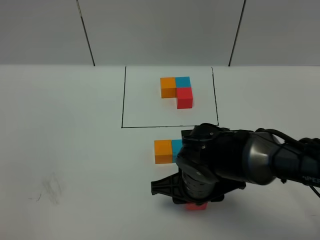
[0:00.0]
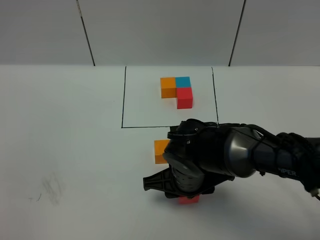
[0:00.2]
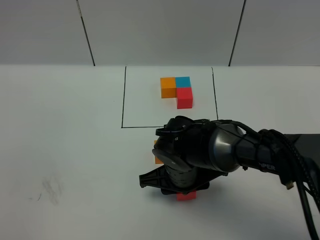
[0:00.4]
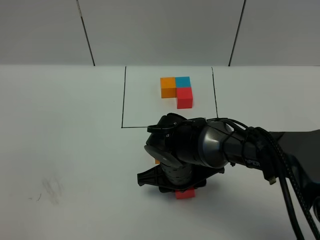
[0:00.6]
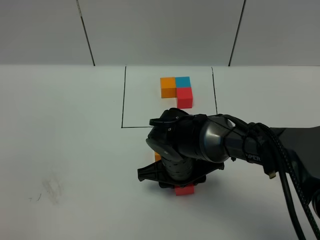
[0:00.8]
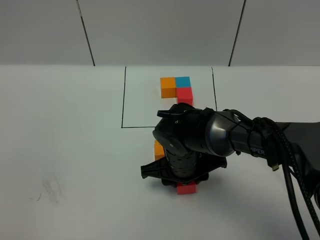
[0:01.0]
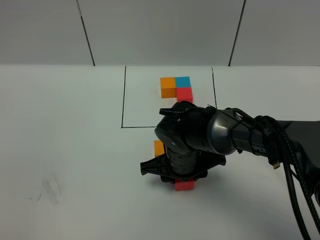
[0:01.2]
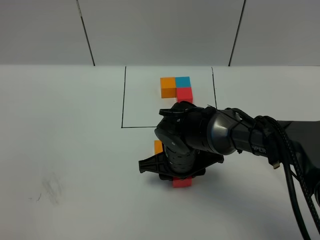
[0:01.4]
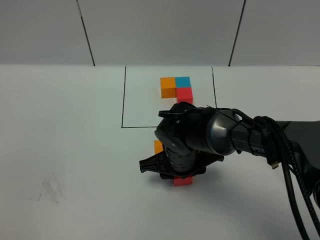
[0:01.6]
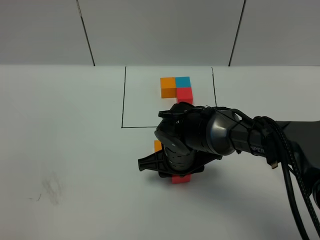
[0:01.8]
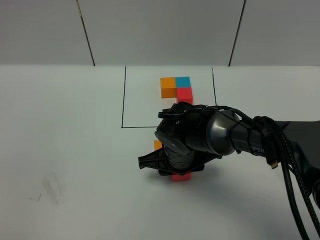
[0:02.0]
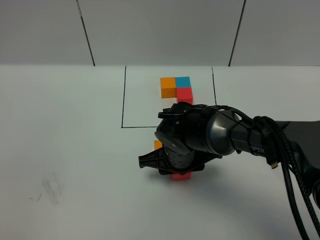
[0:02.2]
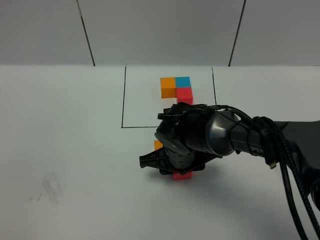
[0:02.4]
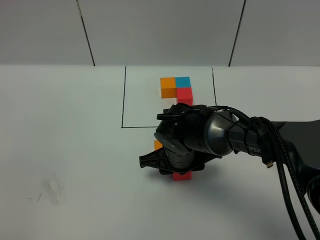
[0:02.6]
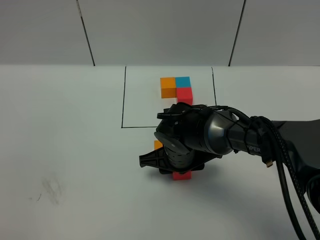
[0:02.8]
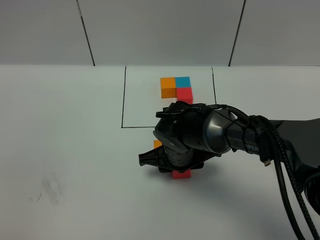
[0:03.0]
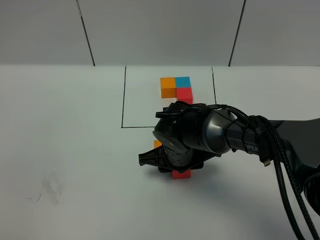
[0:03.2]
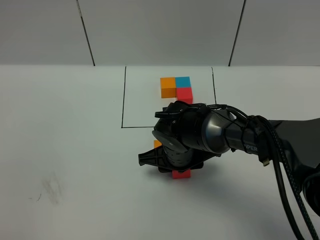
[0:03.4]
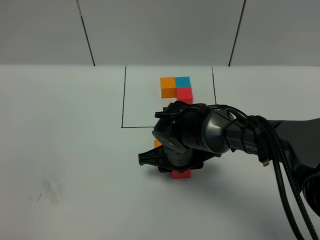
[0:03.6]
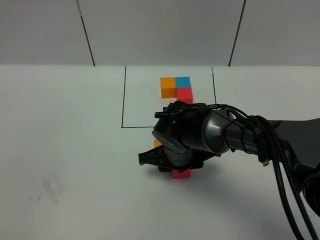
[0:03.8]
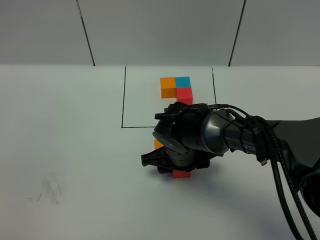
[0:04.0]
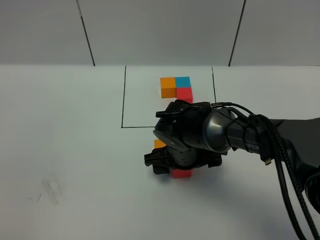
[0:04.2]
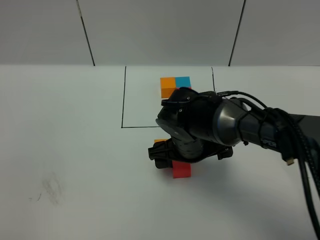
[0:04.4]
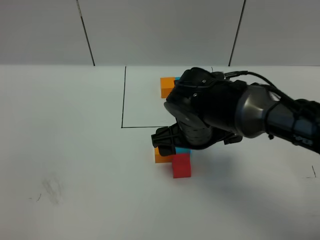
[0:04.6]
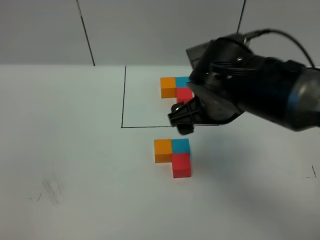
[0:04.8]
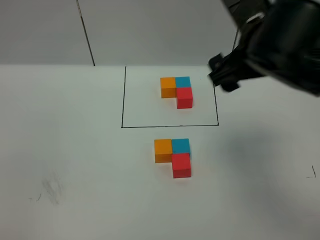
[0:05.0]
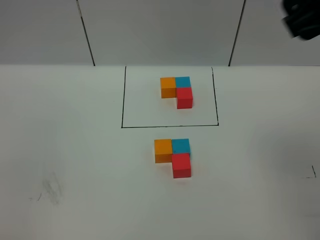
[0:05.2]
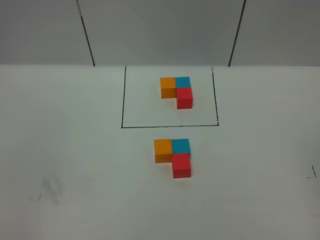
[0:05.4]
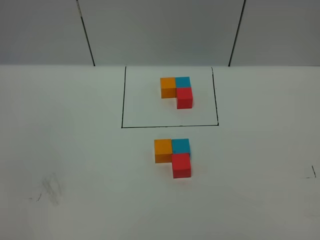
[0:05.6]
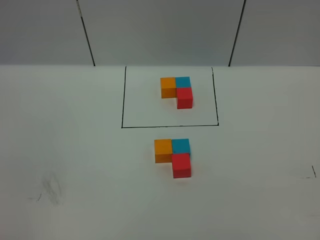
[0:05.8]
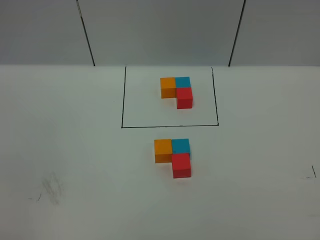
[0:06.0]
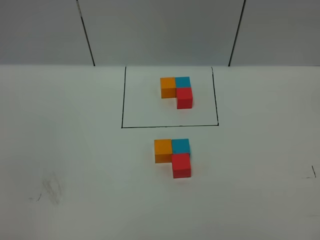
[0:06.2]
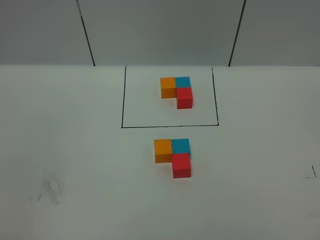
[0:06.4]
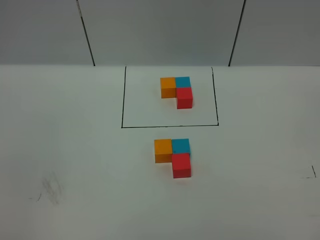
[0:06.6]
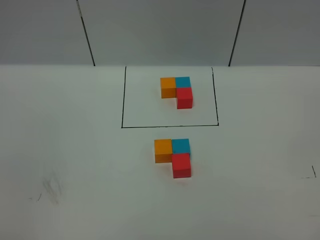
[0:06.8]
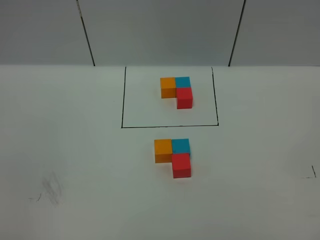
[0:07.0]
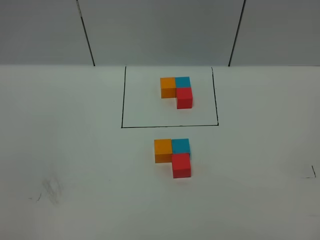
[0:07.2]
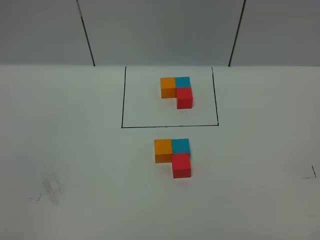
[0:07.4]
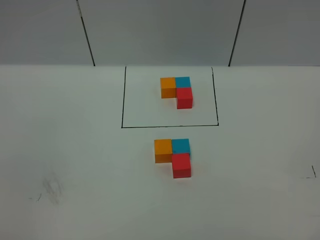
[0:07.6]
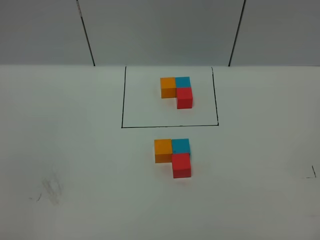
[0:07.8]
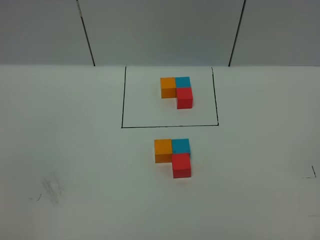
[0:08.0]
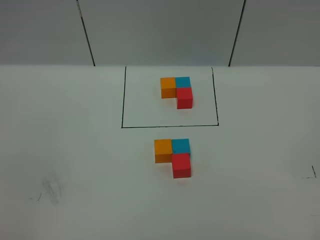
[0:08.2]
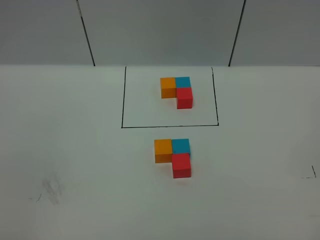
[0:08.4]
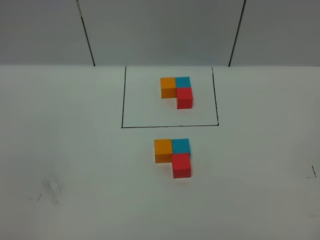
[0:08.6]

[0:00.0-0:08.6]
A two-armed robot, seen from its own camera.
Task of the whole recording: According to the building block template in front, assemble the scattered blocks together.
Step, 0:00.0 to 0:04.6: Put the red cube in the front of the blue cube.
0:00.0 to 0:01.4: The right gripper moves forward, about 5 cm.
0:01.4 to 0:02.8: Neither gripper changes place.
0:02.8 to 0:04.4: The right gripper opens its fingers.
0:04.4 to 0:05.8: The right gripper travels upward, to the right and backward by approximately 50 cm.
